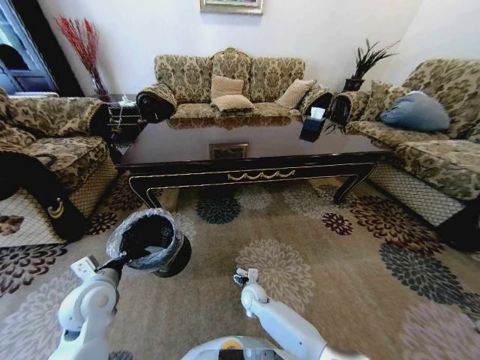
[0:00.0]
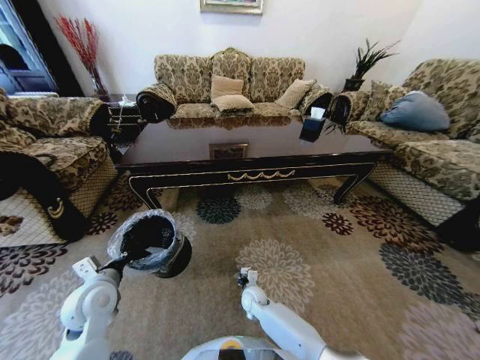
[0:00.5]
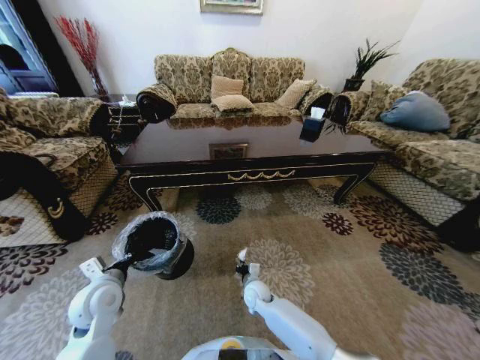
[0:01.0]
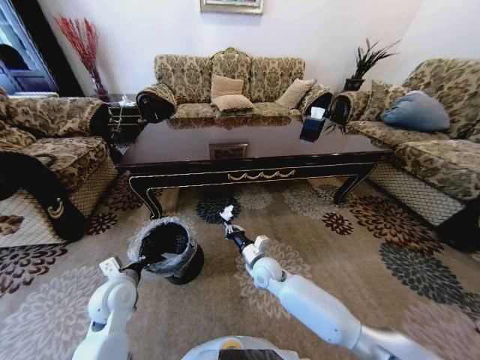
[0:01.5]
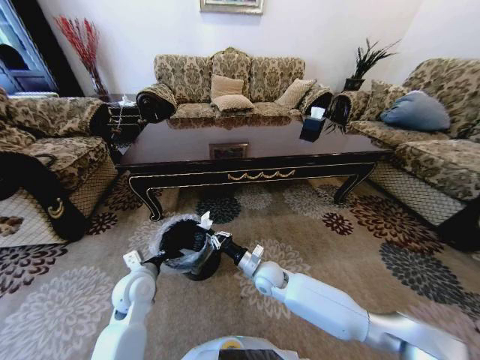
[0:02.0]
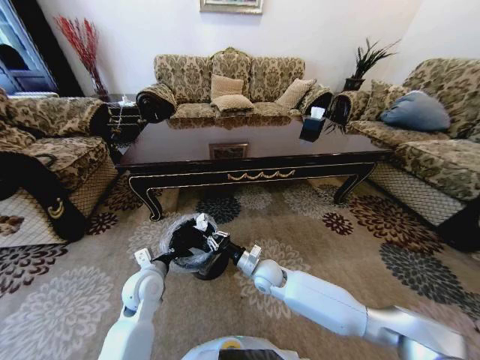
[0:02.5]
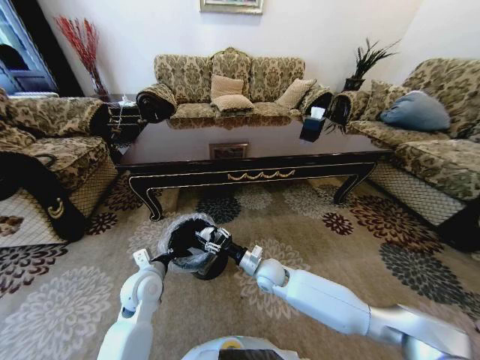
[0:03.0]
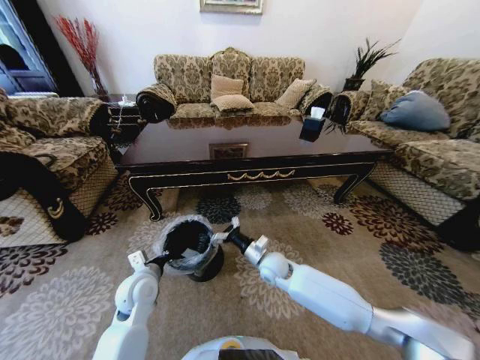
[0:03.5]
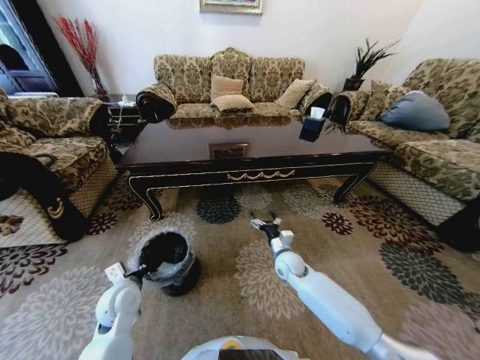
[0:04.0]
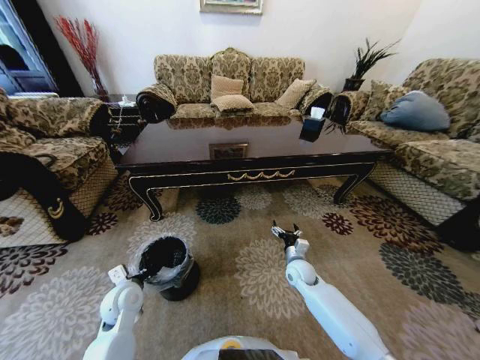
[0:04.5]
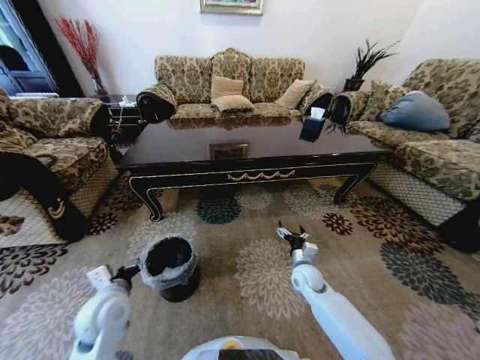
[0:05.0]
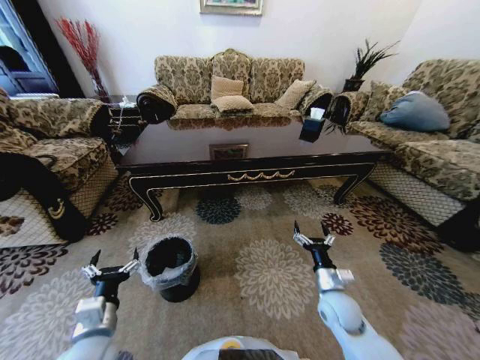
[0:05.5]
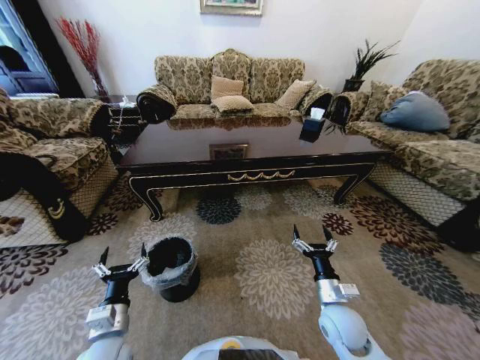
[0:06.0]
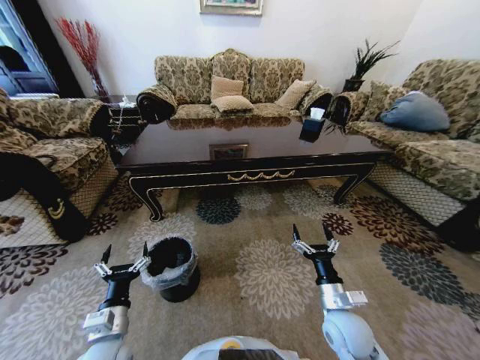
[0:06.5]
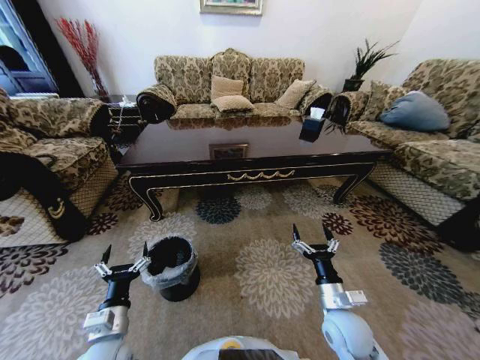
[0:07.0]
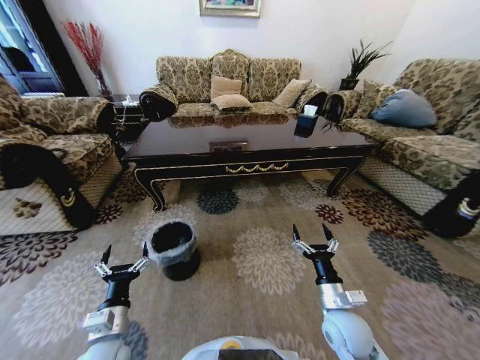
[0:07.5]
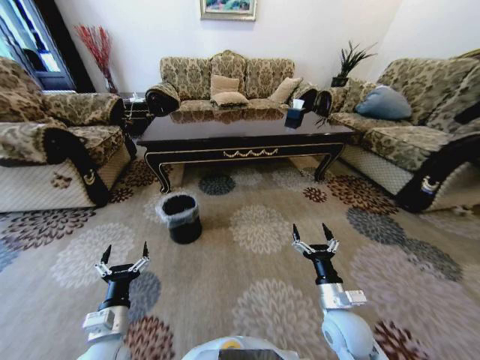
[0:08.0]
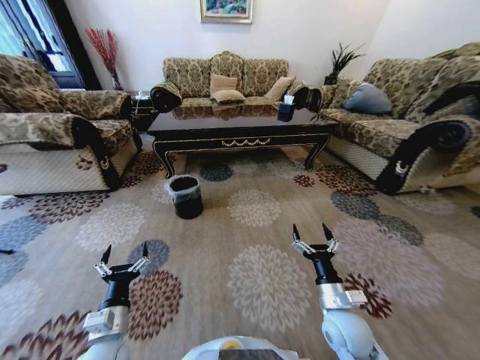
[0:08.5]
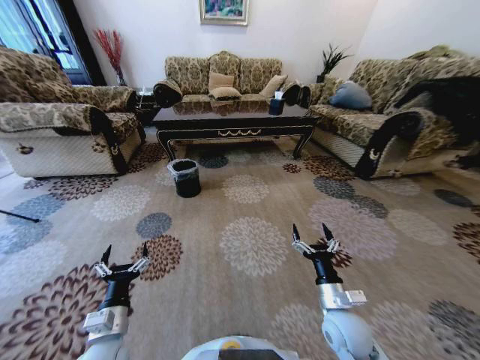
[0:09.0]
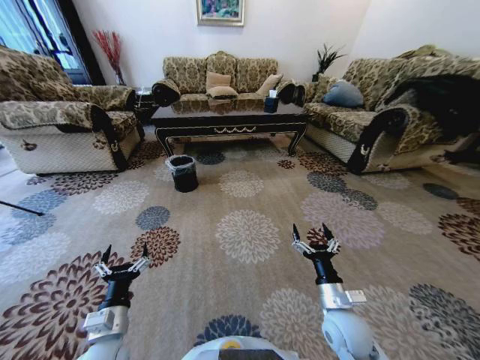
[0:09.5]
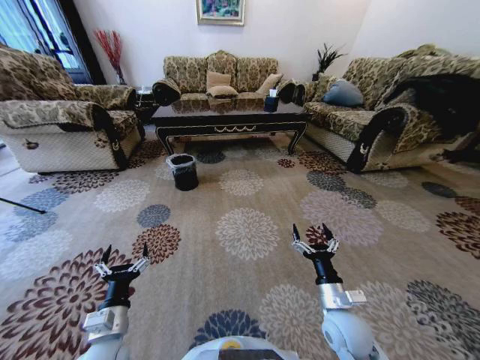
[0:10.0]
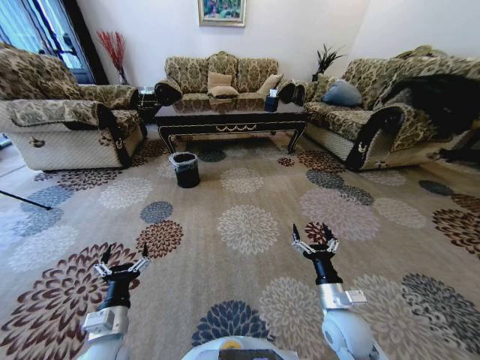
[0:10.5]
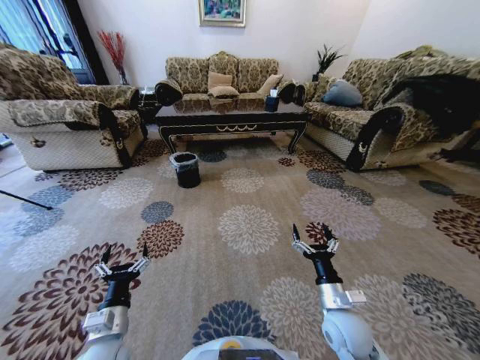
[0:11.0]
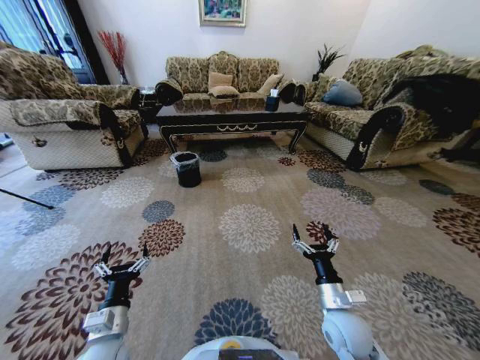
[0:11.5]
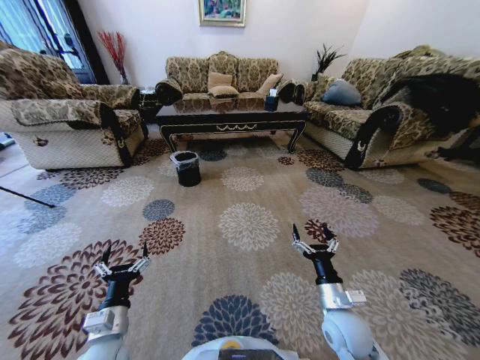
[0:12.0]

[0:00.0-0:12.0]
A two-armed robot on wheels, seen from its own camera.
Task of the whole recording: Move to the front of the table and pick up the trash from the floor, then place it into the trash bin.
0:00.0 to 0:02.0: The right gripper is displaced upward by about 15 cm, and closes. The left gripper is displaced to the right by some 5 cm.
0:02.0 to 0:04.0: The right gripper goes some 10 cm to the right, and opens.
0:04.0 to 0:06.0: The left gripper shifts roughly 10 cm backward, and opens up. The right gripper heads backward and to the right, covering roughly 20 cm.
0:10.0 to 0:12.0: Both grippers stay put.

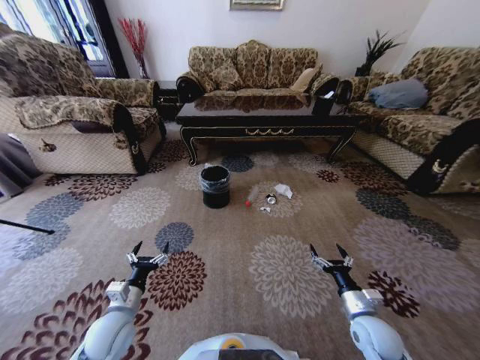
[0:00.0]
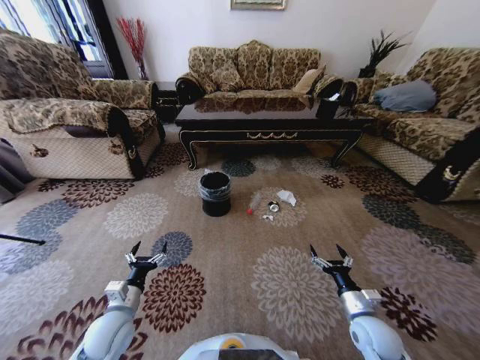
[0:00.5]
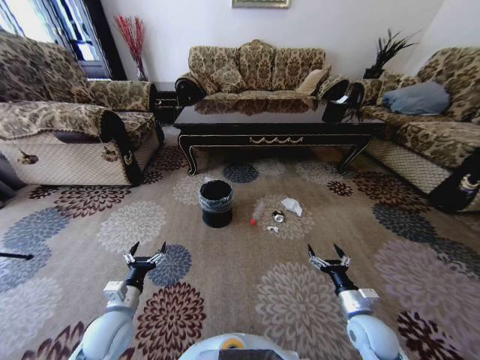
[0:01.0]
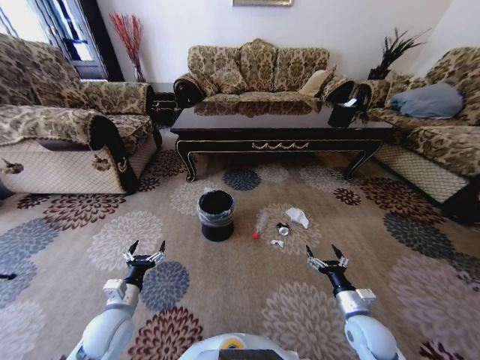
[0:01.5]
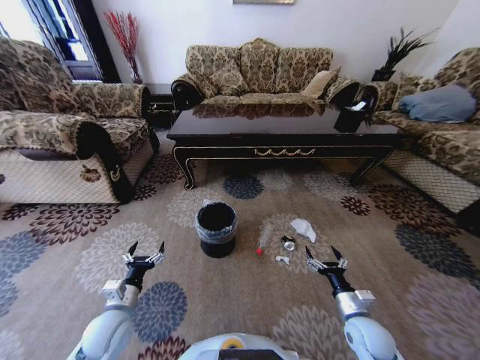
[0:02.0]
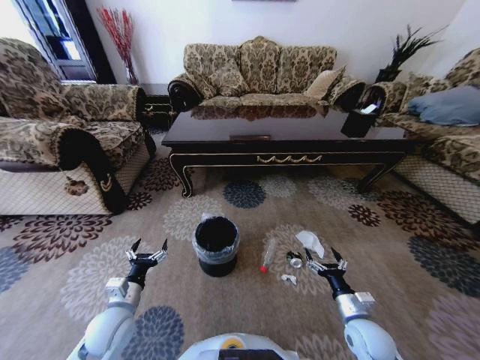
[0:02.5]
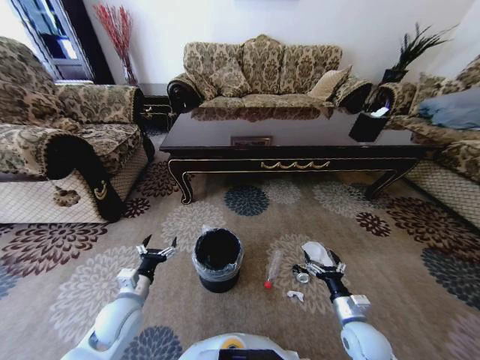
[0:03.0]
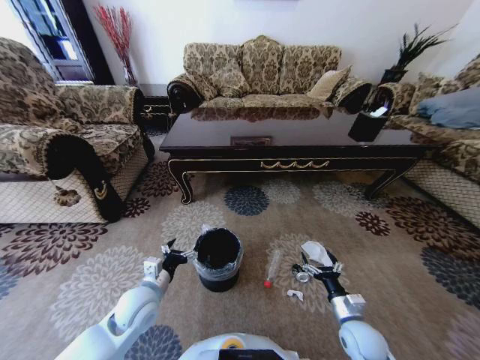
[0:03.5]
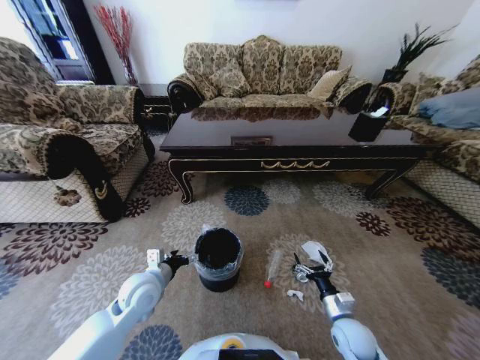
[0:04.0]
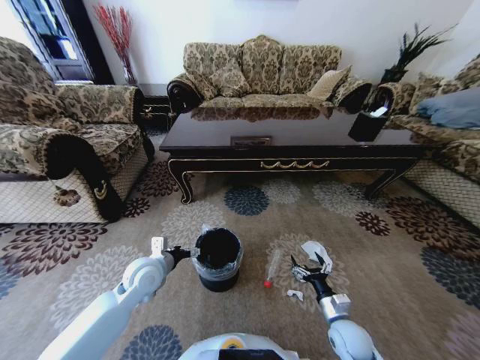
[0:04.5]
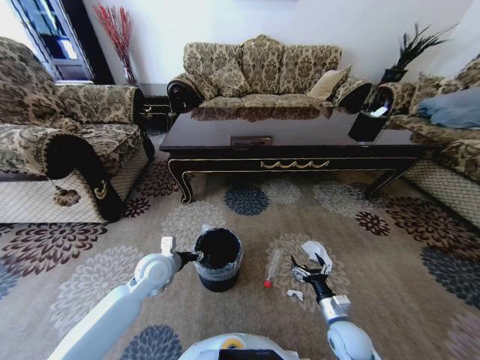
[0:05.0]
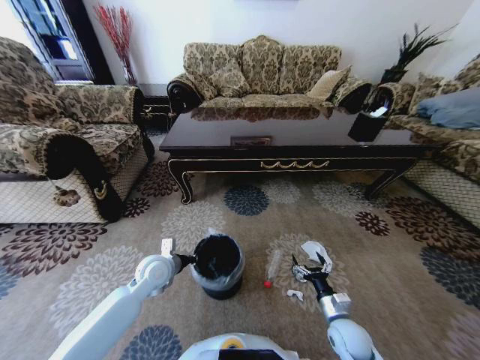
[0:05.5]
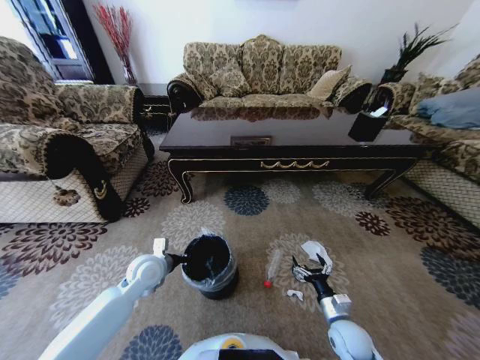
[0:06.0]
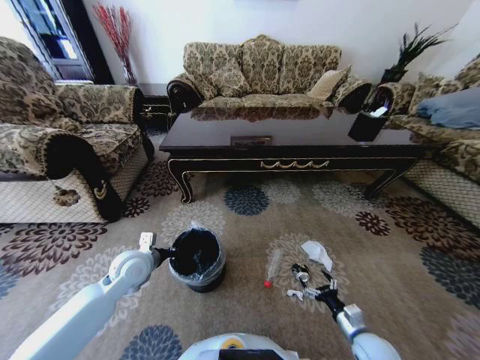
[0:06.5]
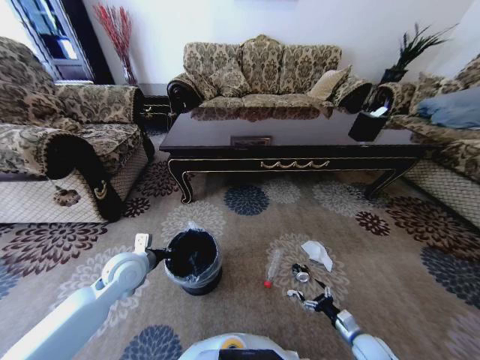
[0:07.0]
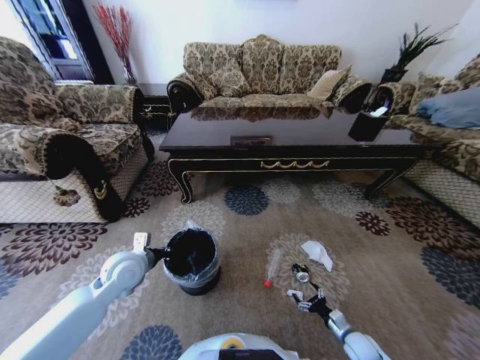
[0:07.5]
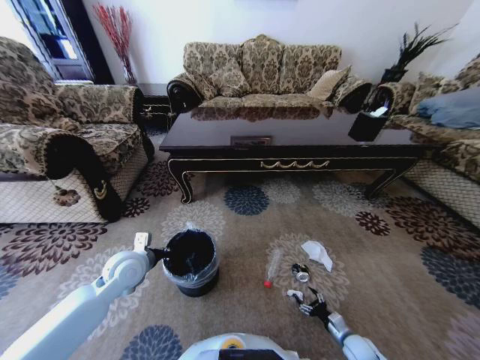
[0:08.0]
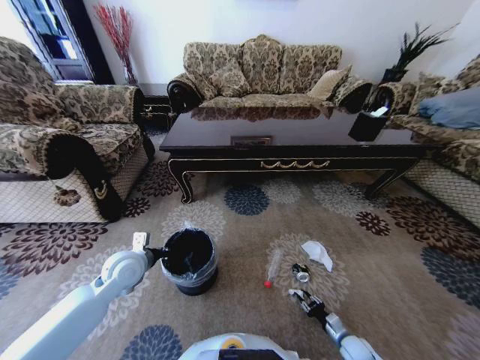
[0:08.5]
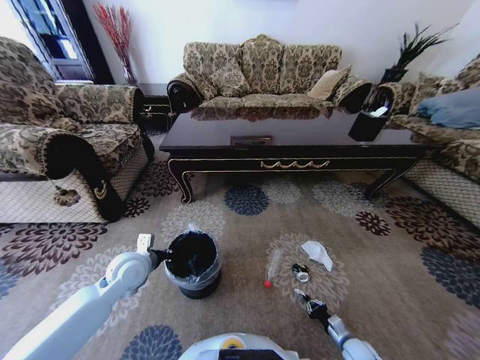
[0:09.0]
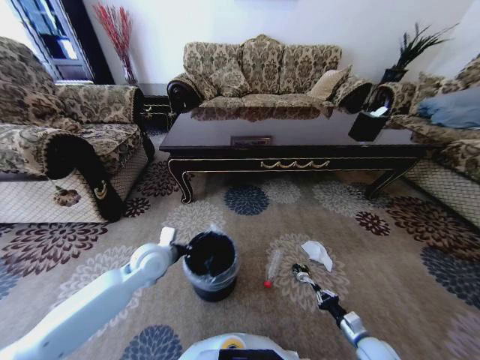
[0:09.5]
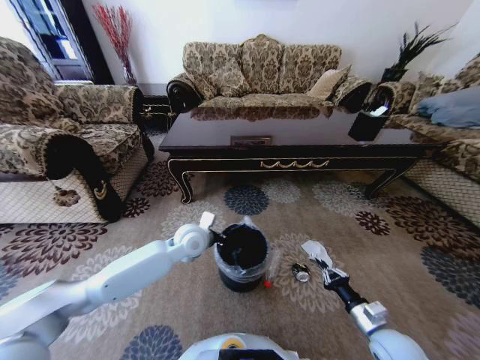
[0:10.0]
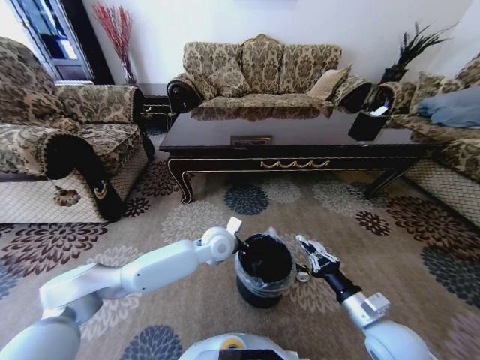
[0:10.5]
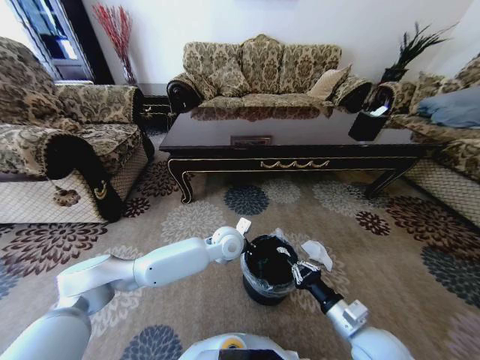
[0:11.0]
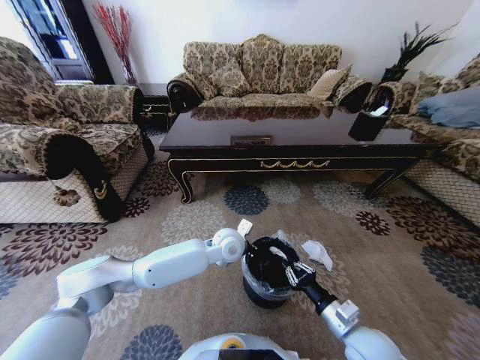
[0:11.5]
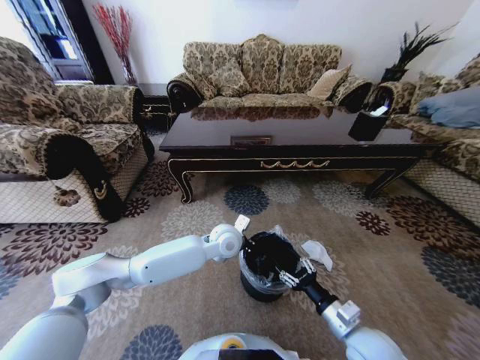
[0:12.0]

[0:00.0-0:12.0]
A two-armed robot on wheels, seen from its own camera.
Task of the whole recording: Move to the front of the table and pick up the trash from the floor, then place it into the trash bin.
0:02.0 to 0:04.0: The left gripper is displaced forward, to the right and upward by approximately 10 cm.
0:04.0 to 0:06.0: The left gripper heads forward, covering approximately 5 cm, and closes its fingers.
0:06.0 to 0:08.0: The left gripper changes place by approximately 5 cm. The right gripper heads downward and to the right, covering some 15 cm.
0:08.0 to 0:10.0: The left gripper is displaced to the right and forward by approximately 20 cm. Meanwhile the right gripper goes approximately 20 cm upward, and closes up.
0:10.0 to 0:12.0: The right gripper is displaced to the left and upward by approximately 10 cm, and opens up. Meanwhile the left gripper is displaced to the right by about 10 cm.

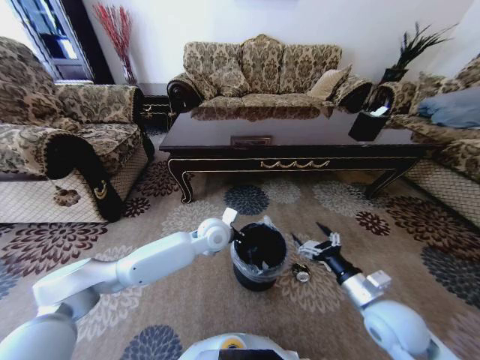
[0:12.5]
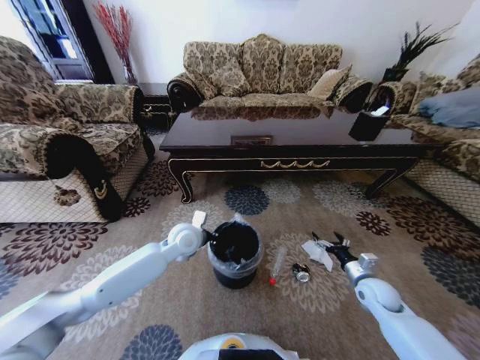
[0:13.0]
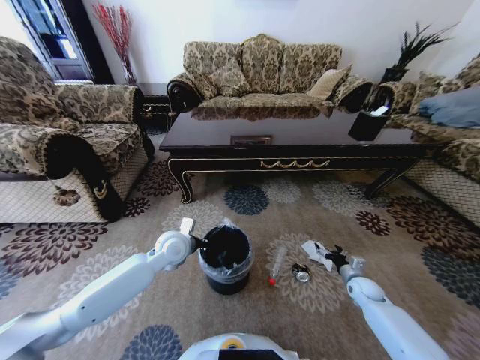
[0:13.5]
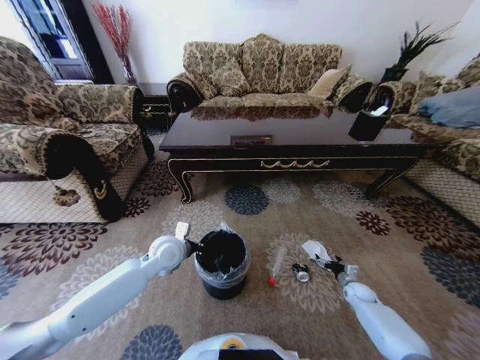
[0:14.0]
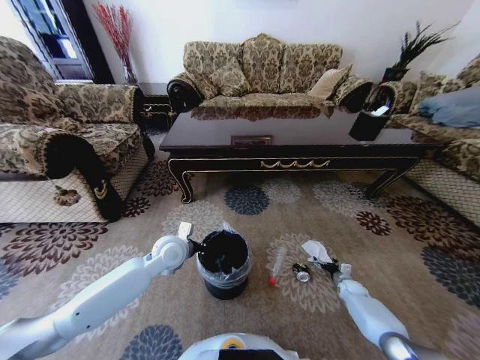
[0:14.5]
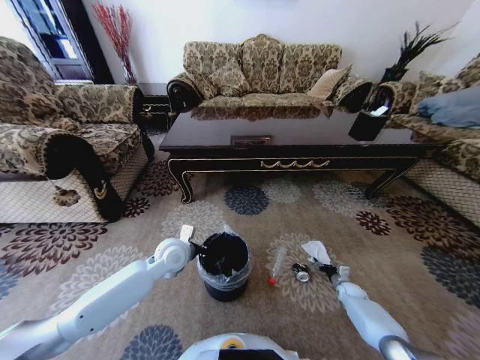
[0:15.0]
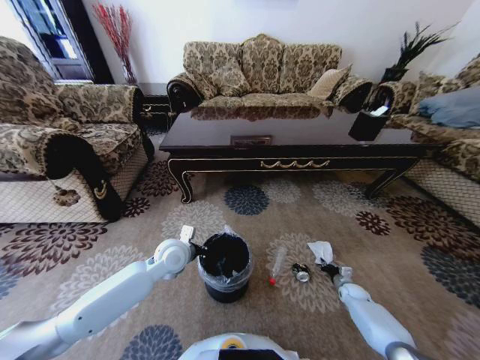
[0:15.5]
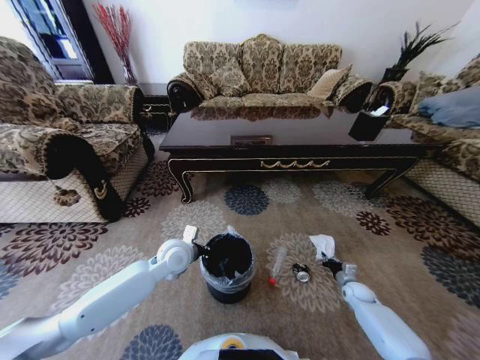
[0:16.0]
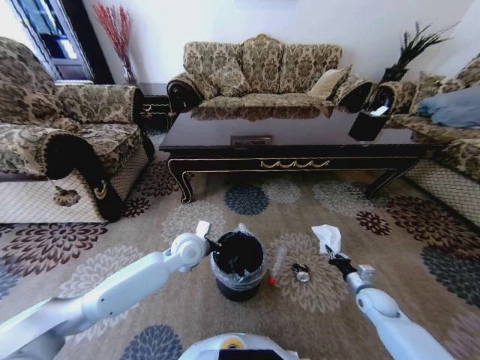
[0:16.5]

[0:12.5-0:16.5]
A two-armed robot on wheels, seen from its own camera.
Task of the whole recording: Move to the front of the table and pick up the trash from the floor, then place it into the trash bin.
0:12.5 to 0:14.5: The left gripper goes approximately 15 cm to the left; the right gripper moves downward, to the right and forward, roughly 35 cm.
0:14.5 to 0:16.5: The right gripper is displaced upward and backward by about 15 cm, and closes its fingers. The left gripper travels to the right by some 5 cm.
